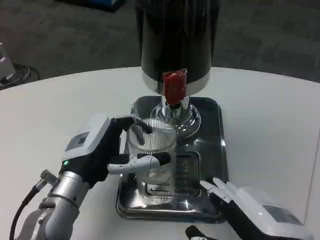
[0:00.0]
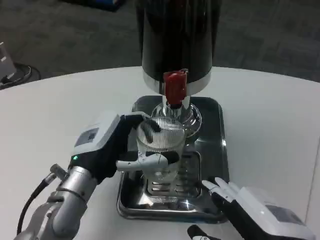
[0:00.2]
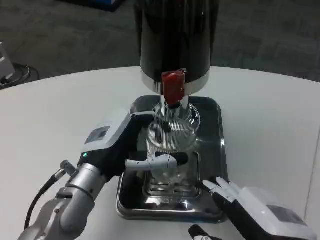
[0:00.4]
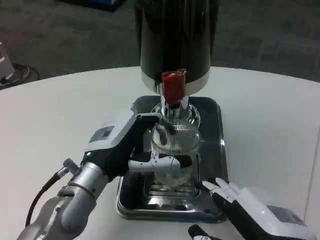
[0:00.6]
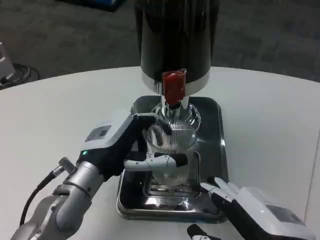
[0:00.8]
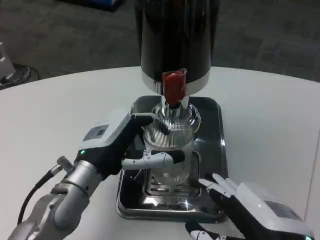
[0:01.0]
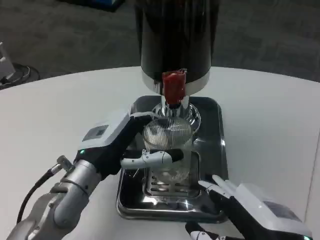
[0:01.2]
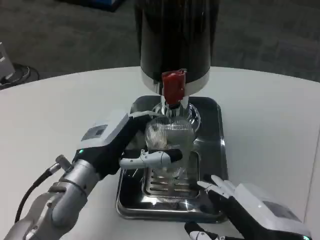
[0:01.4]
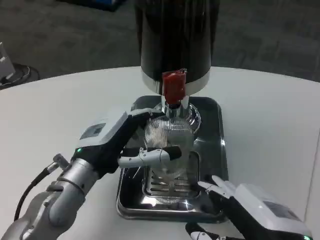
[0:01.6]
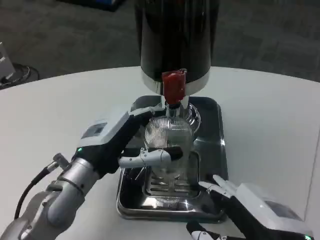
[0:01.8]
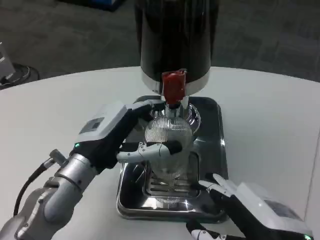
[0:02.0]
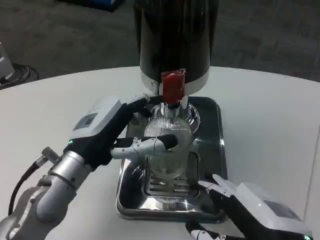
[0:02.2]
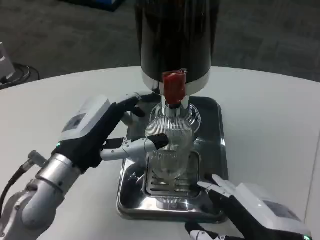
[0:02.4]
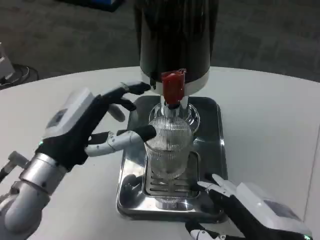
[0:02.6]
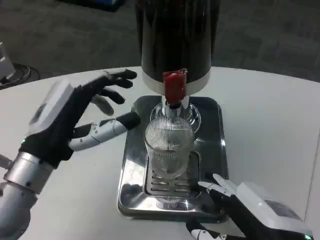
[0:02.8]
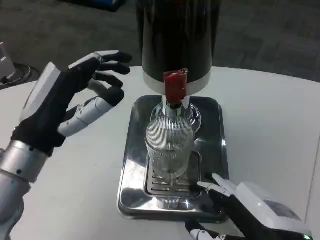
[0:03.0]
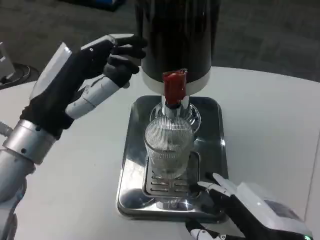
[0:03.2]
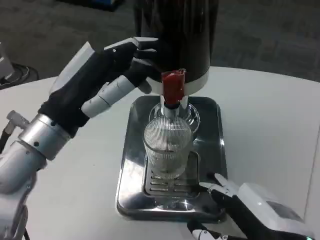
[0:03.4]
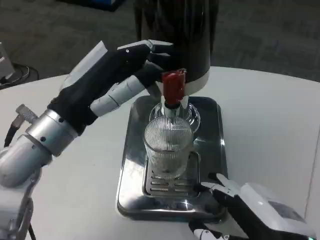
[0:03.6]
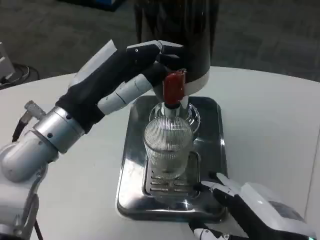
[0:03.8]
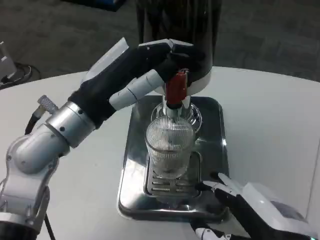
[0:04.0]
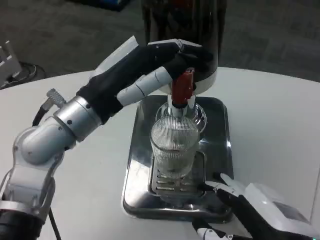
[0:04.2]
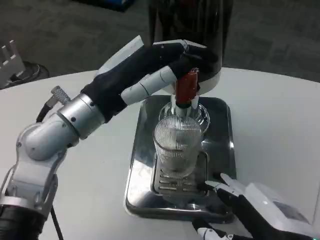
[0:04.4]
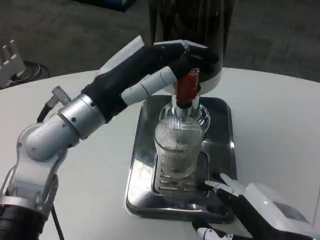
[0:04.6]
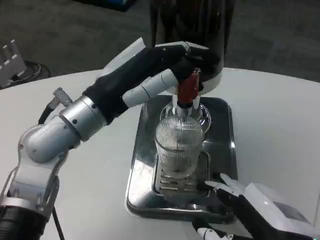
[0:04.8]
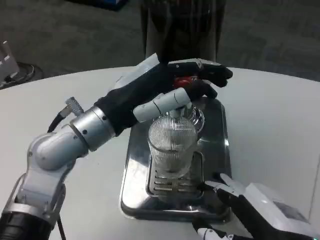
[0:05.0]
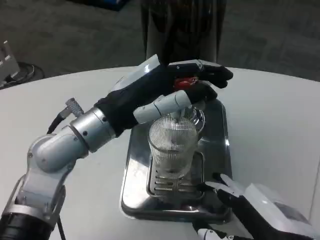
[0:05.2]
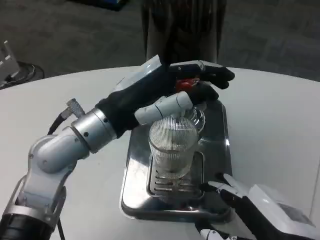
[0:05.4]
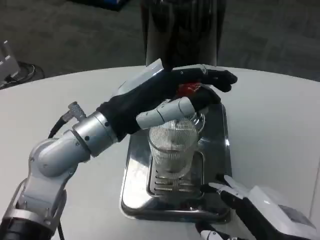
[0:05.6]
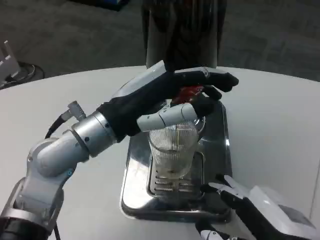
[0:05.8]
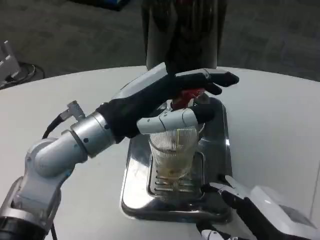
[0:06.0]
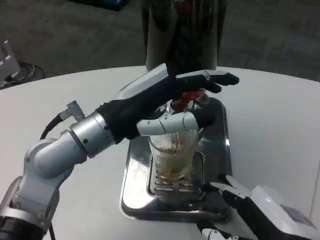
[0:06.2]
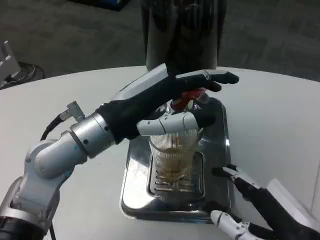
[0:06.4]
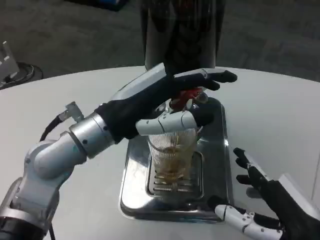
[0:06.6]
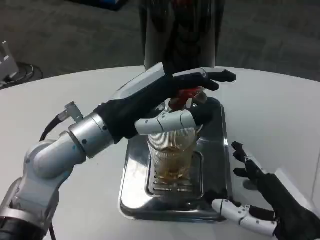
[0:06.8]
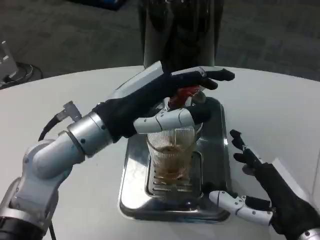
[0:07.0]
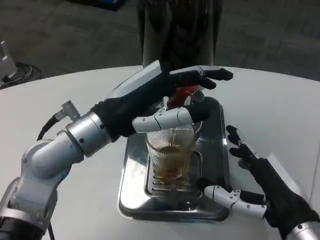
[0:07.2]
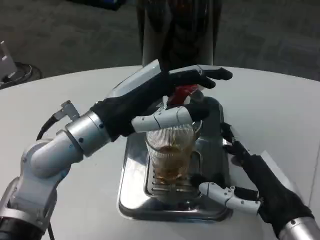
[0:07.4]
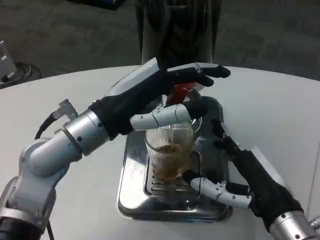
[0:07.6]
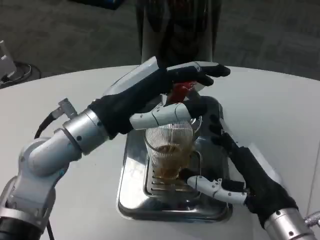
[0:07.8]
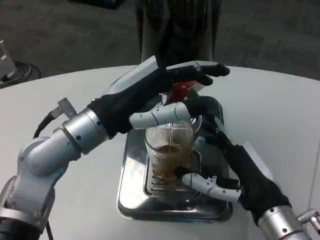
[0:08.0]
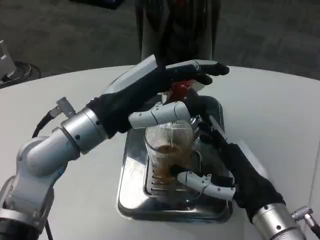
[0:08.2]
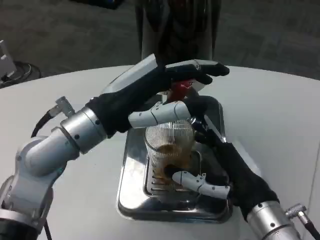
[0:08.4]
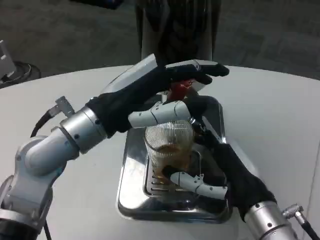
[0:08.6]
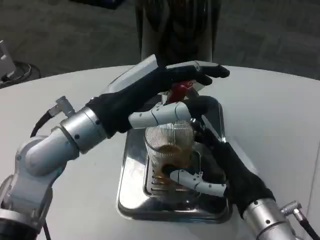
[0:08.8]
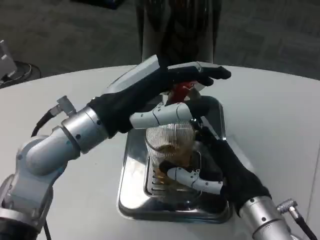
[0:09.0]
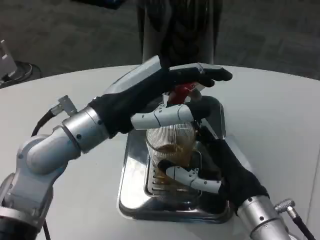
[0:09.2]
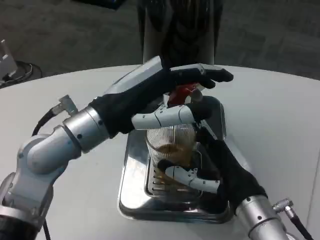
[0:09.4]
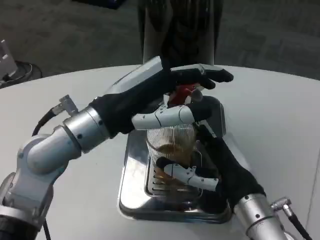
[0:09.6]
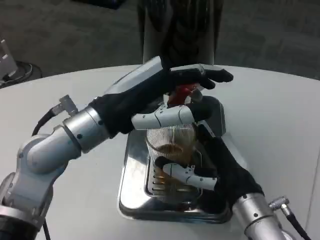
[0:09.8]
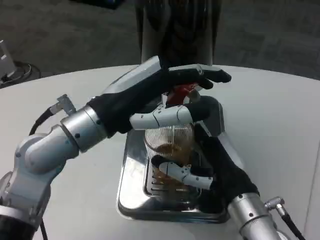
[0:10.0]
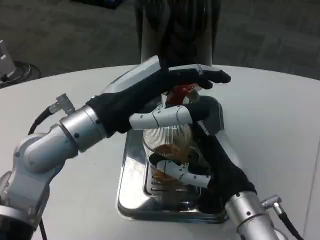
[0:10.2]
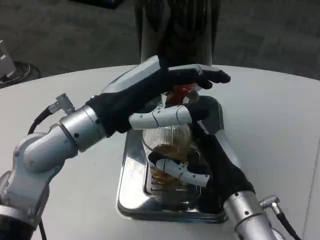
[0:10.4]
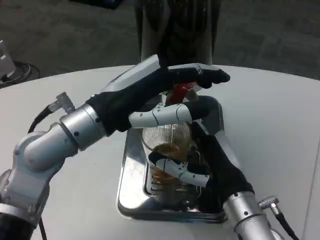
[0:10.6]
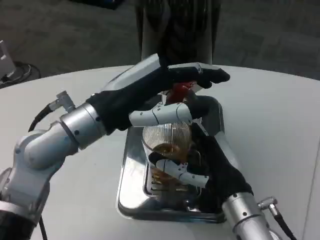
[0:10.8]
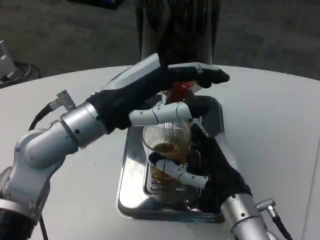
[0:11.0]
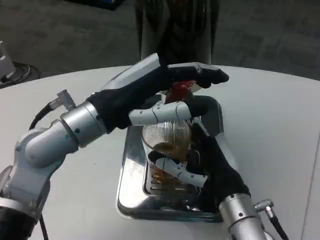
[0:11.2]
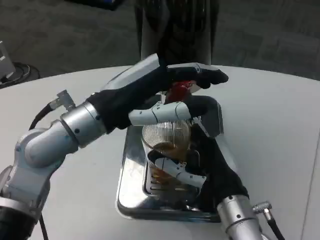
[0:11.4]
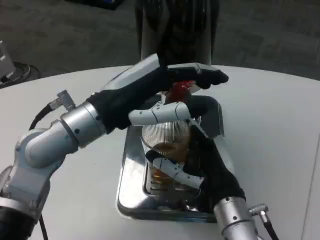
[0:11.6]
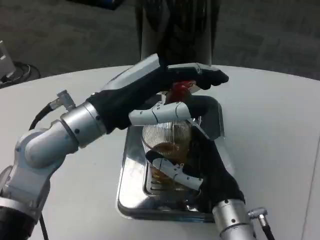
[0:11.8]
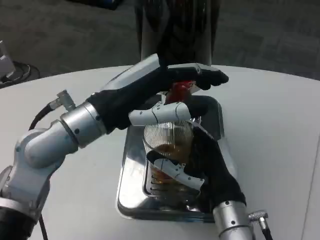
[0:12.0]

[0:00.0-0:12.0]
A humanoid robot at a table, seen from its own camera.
Task of the whole recording: Grasp the cup under the faucet to collect the drink, then remove the cup.
0.0 to 1.6 s: The hands make only small movements.
1.6 to 3.0 s: The left hand goes some 5 cm upward.
3.0 to 4.4 s: The left hand goes about 5 cm upward and to the right.
6.0 to 7.6 s: The right hand heads forward, covering approximately 10 cm.
7.6 to 9.0 s: The hands move only a little.
9.0 to 12.0 s: The hands make only small movements.

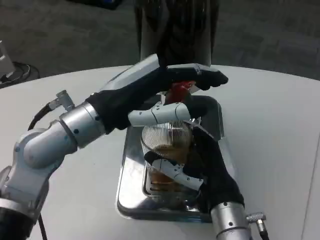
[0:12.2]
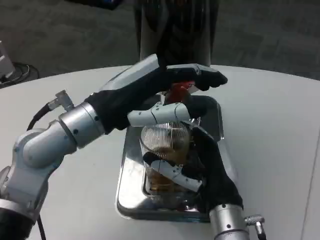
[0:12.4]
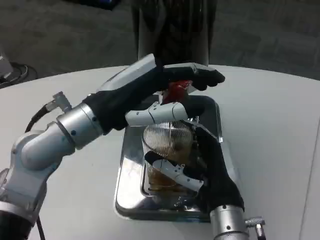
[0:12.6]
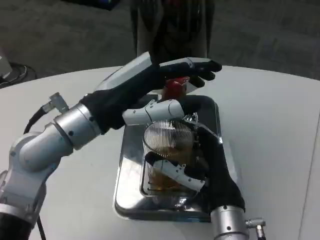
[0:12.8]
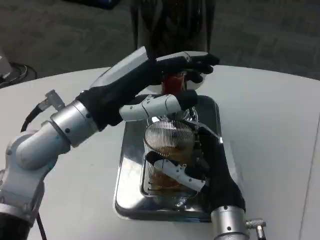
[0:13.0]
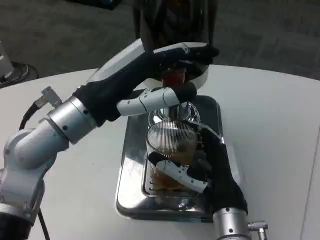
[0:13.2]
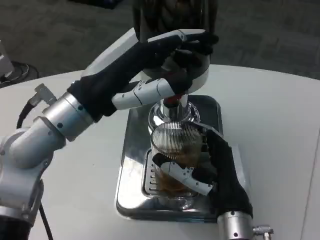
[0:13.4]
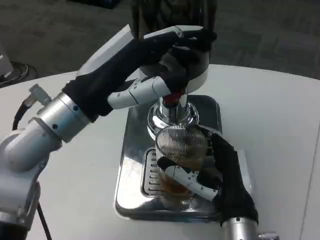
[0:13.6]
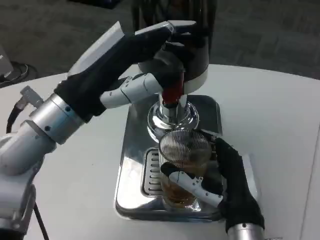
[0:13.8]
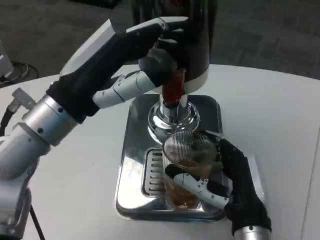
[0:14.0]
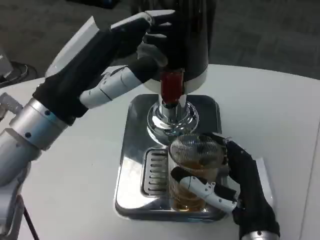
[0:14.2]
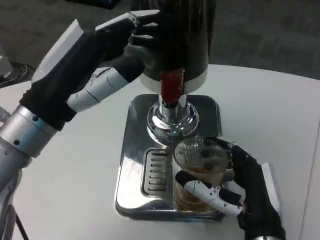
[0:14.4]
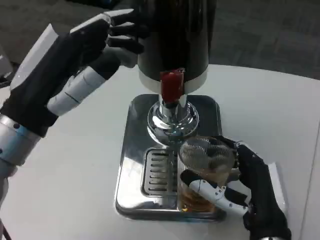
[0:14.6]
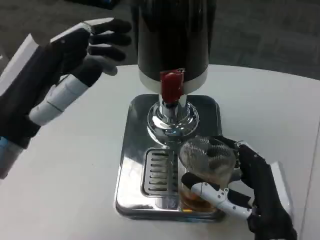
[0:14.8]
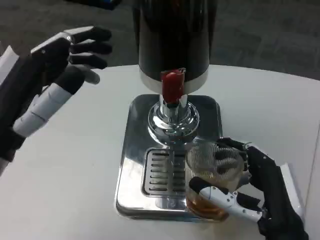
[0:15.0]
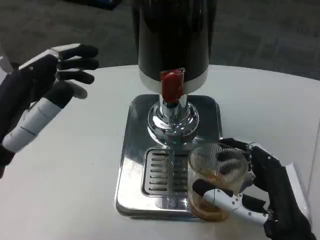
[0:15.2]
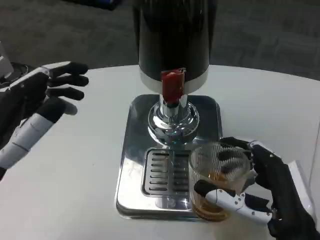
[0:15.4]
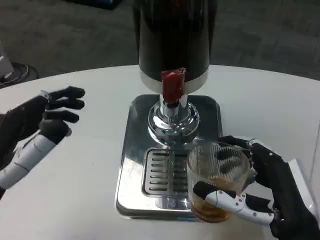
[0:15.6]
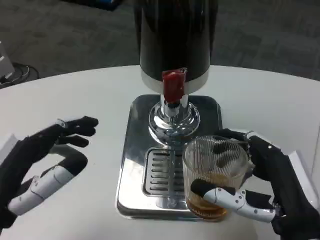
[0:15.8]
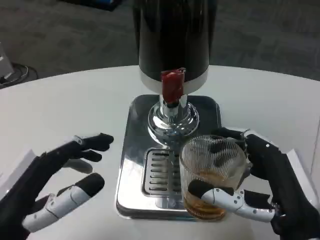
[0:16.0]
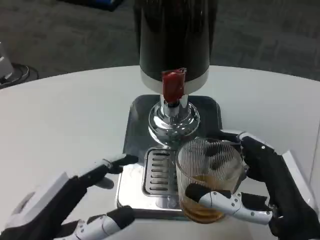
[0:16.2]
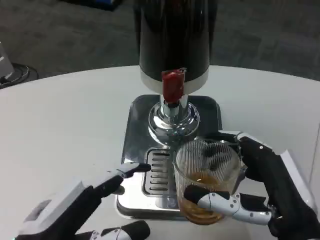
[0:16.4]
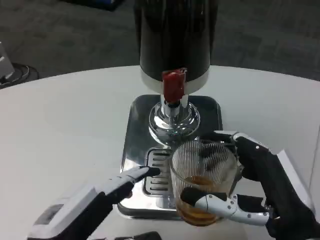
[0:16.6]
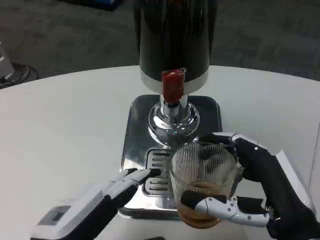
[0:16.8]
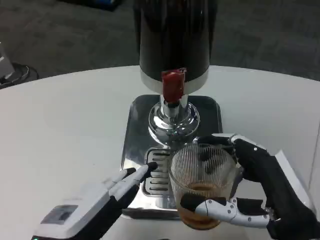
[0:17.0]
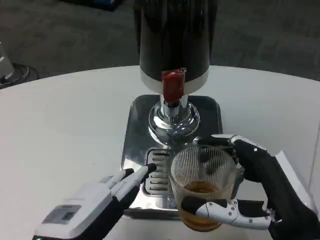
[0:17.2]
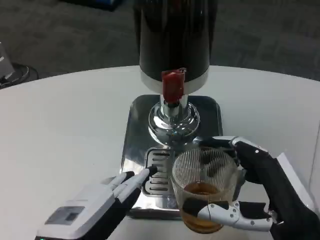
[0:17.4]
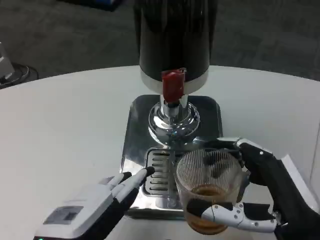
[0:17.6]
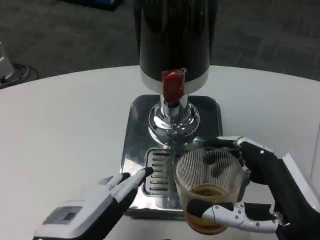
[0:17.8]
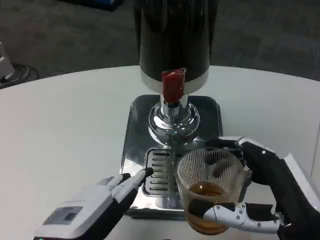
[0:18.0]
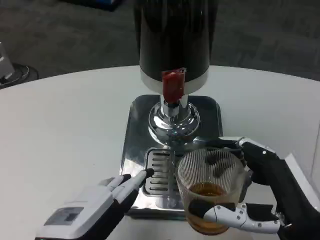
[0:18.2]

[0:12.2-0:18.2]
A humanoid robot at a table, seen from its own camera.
Task of the whole recording: Grasp the cup under the faucet to collect the drink, then remove the cup.
13.8 to 15.2 s: The right hand travels to the right by roughly 5 cm, while the left hand heads backward and to the left, covering about 10 cm.
15.2 to 16.6 s: The left hand is displaced downward and backward by roughly 10 cm.
16.6 to 18.2 s: The hands move only a little.

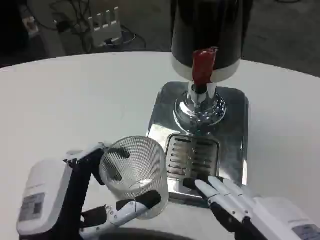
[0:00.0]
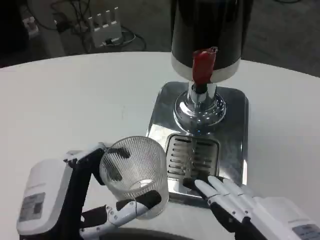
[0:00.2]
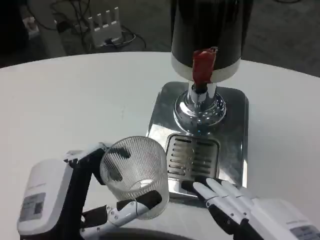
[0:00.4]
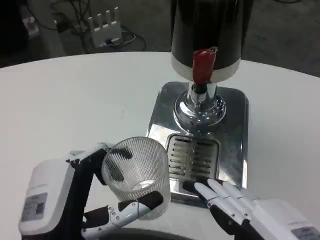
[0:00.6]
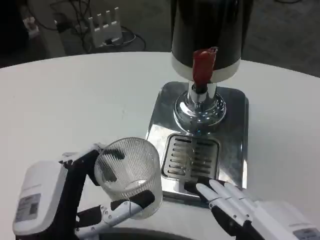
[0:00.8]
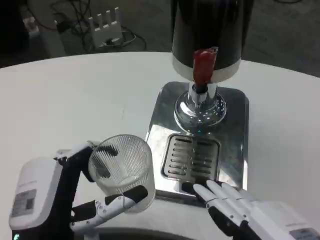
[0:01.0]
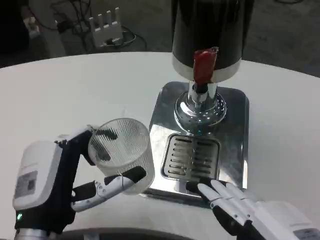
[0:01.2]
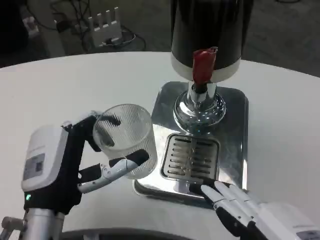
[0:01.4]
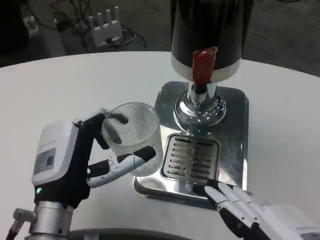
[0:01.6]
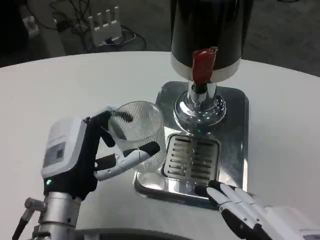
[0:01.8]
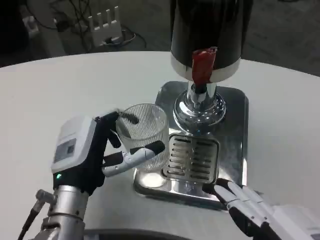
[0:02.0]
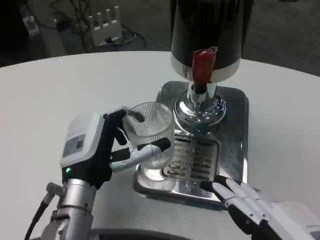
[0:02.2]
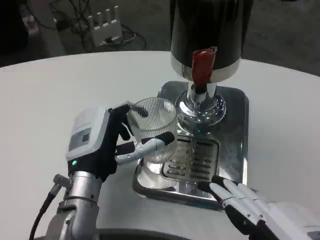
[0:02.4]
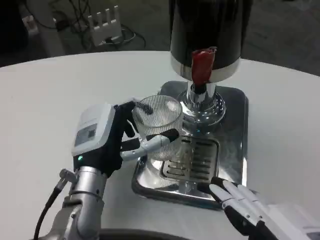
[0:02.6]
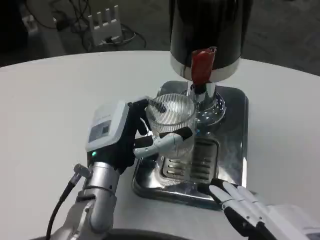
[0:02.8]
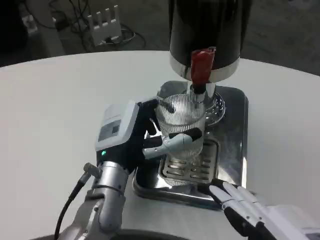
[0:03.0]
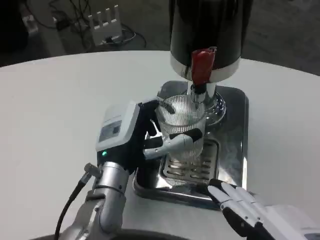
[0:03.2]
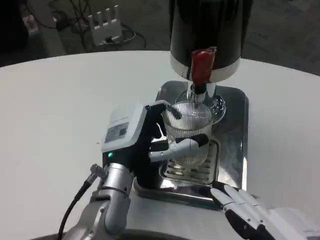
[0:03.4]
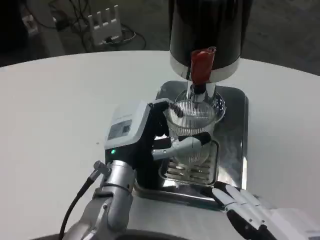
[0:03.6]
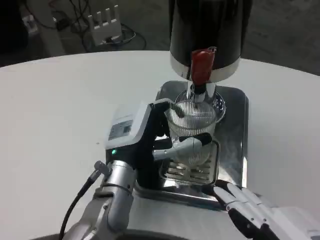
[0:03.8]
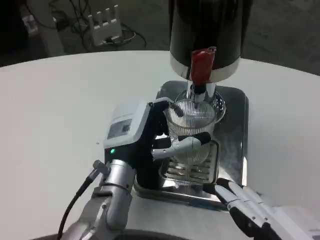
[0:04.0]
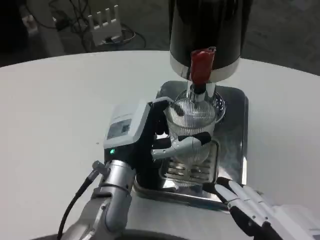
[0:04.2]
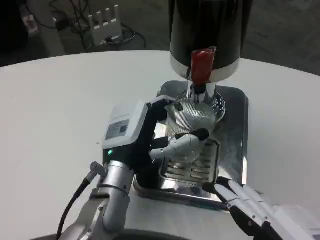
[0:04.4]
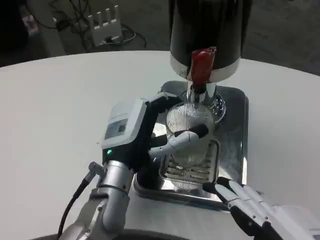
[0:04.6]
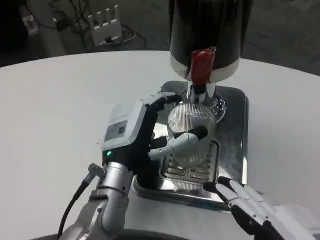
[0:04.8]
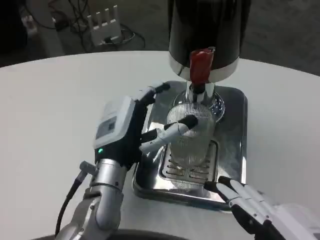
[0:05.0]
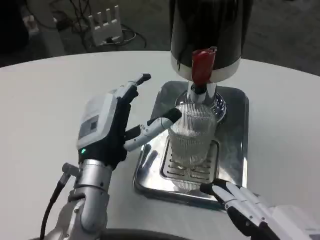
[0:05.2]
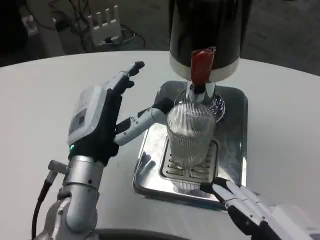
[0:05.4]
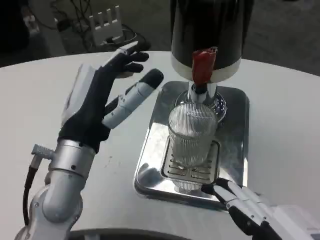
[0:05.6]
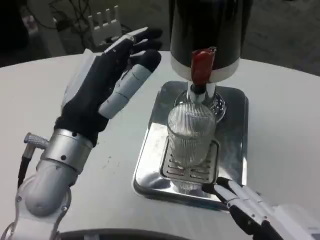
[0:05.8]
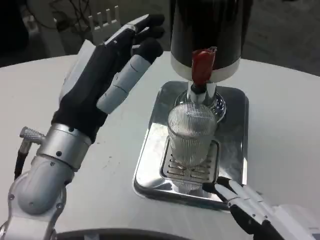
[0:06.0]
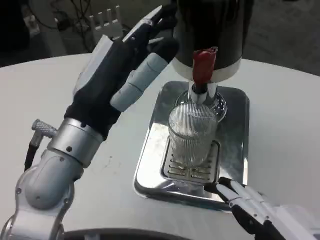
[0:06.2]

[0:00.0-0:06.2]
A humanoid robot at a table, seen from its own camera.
Task of the whole recording: Grasp the cup under the faucet to collect the drink, then remove the cup.
0.0 to 1.6 s: The left hand goes about 10 cm forward.
1.6 to 3.2 s: The left hand goes roughly 10 cm forward and to the right.
3.2 to 4.6 s: The two hands keep their place.
4.6 to 6.2 s: The left hand heads upward and backward, covering roughly 15 cm.
